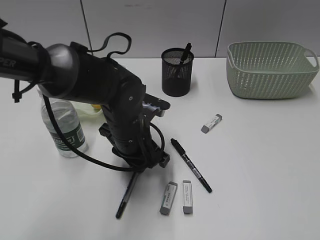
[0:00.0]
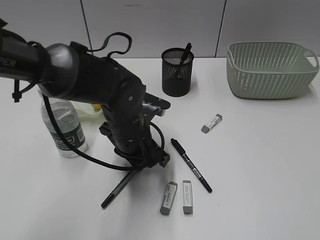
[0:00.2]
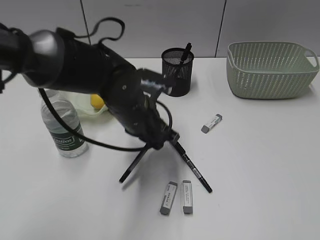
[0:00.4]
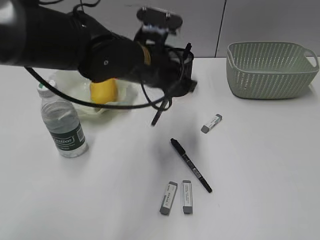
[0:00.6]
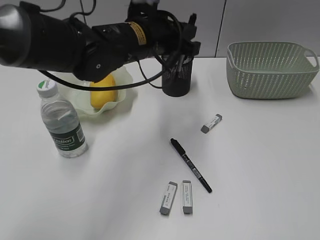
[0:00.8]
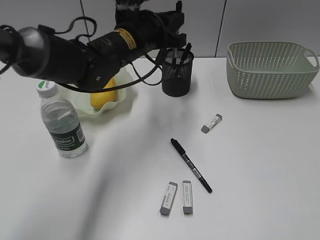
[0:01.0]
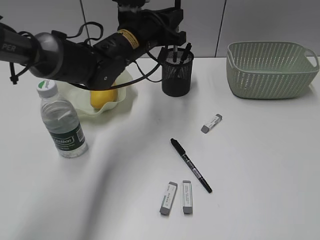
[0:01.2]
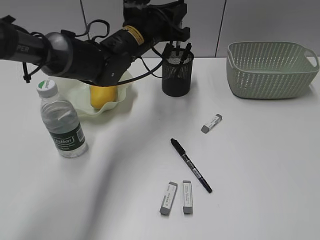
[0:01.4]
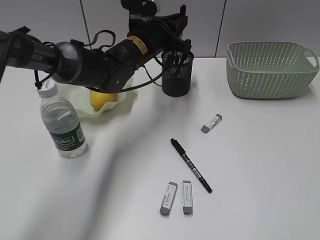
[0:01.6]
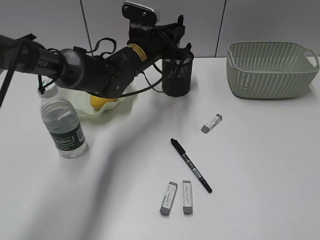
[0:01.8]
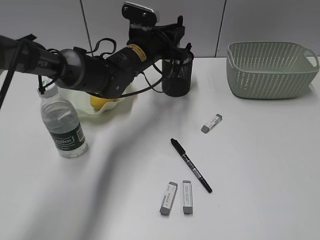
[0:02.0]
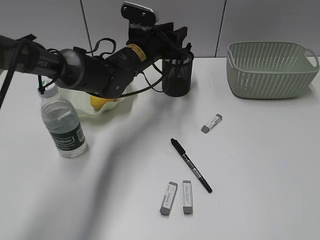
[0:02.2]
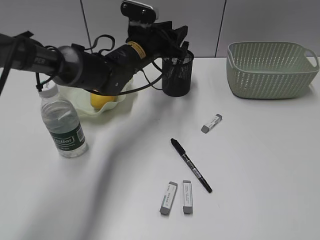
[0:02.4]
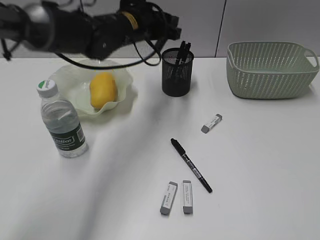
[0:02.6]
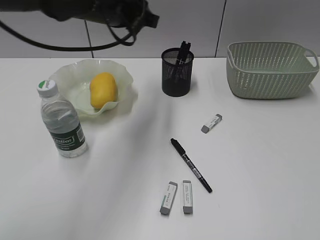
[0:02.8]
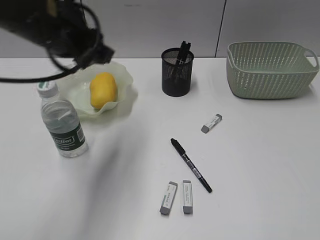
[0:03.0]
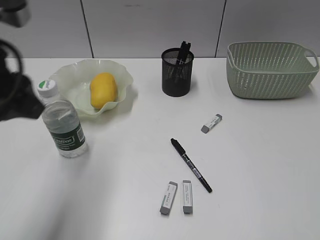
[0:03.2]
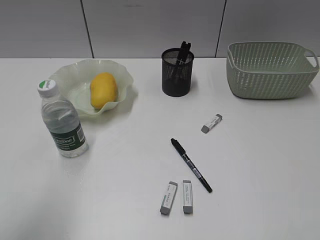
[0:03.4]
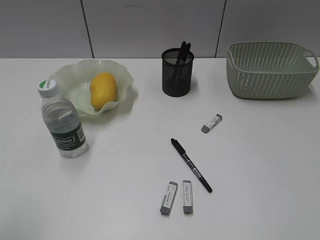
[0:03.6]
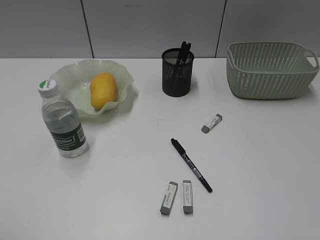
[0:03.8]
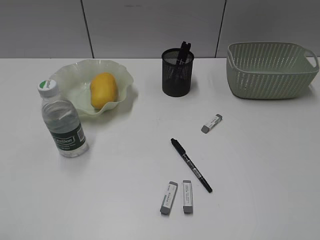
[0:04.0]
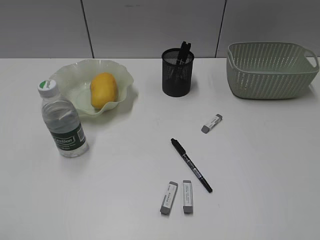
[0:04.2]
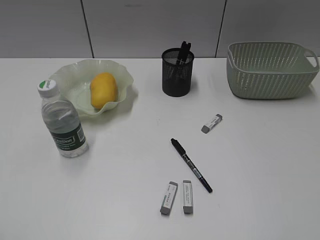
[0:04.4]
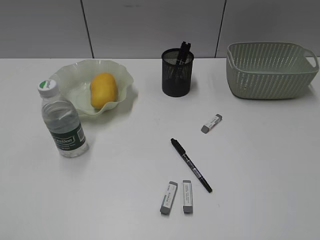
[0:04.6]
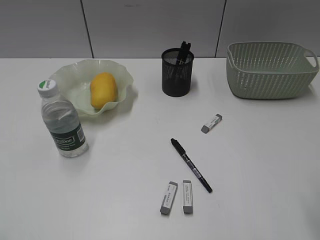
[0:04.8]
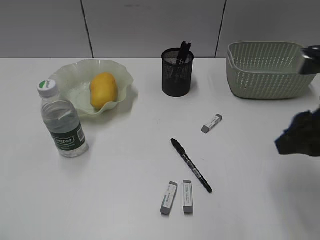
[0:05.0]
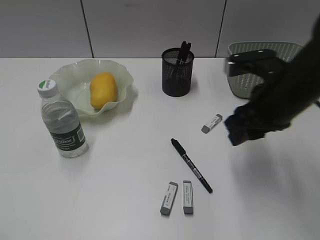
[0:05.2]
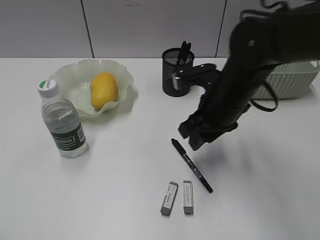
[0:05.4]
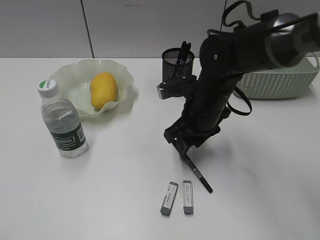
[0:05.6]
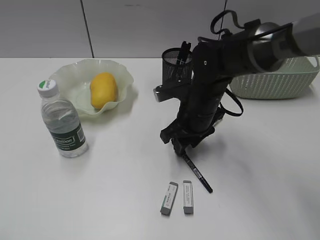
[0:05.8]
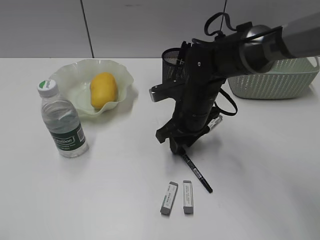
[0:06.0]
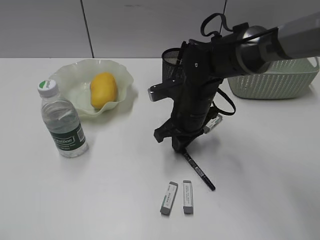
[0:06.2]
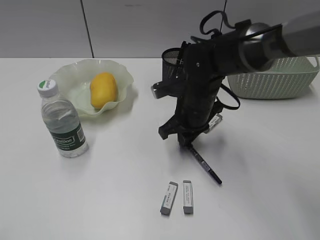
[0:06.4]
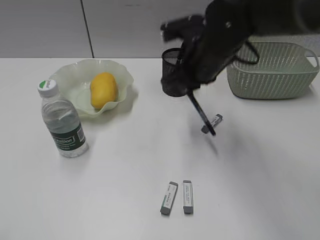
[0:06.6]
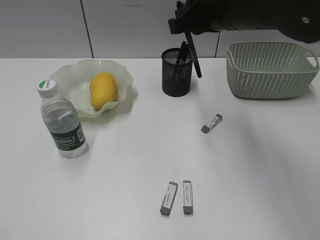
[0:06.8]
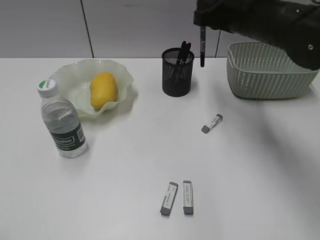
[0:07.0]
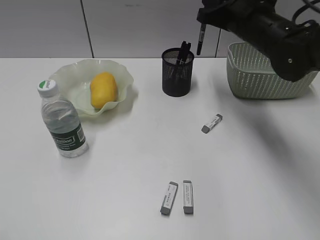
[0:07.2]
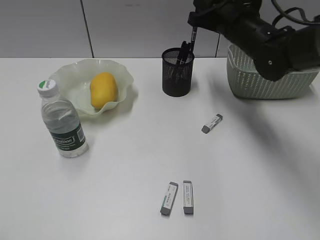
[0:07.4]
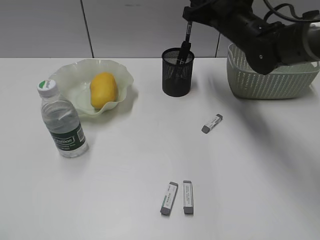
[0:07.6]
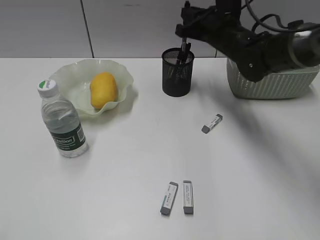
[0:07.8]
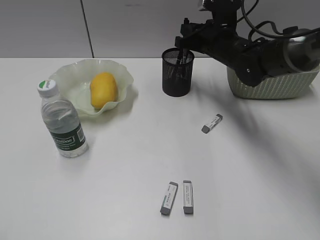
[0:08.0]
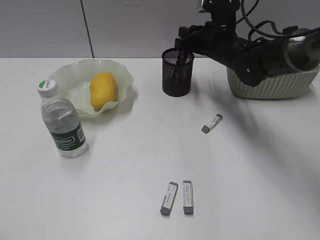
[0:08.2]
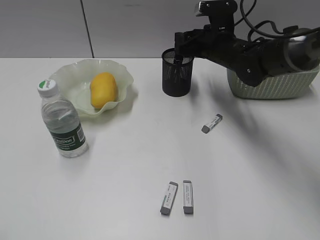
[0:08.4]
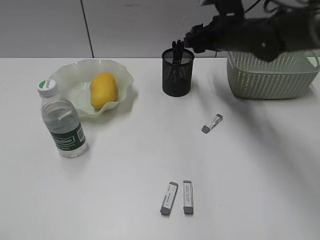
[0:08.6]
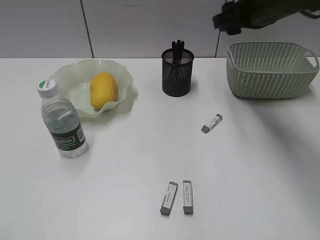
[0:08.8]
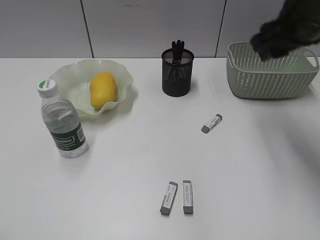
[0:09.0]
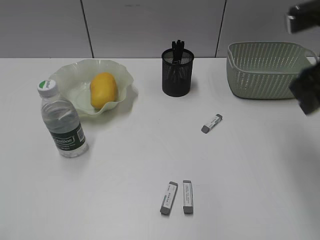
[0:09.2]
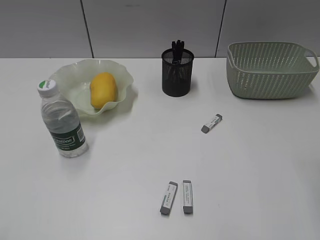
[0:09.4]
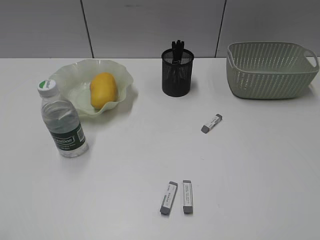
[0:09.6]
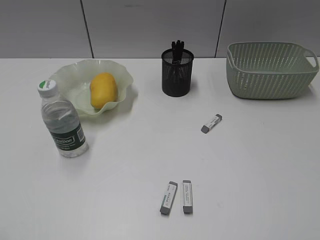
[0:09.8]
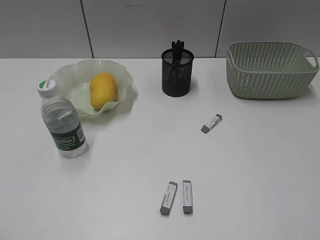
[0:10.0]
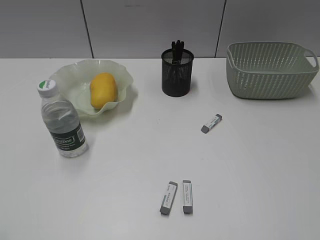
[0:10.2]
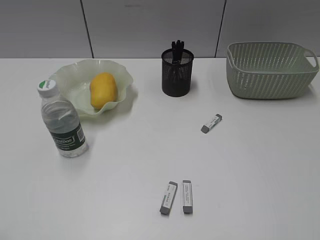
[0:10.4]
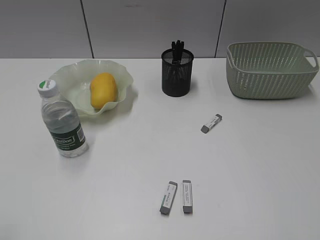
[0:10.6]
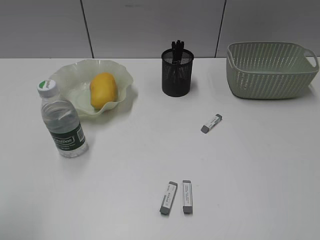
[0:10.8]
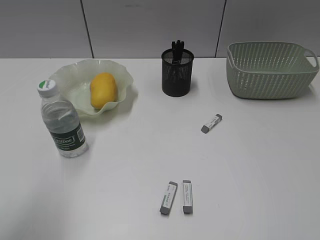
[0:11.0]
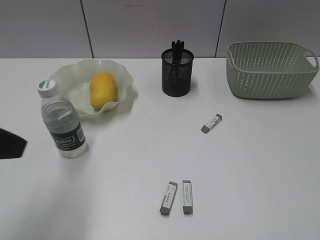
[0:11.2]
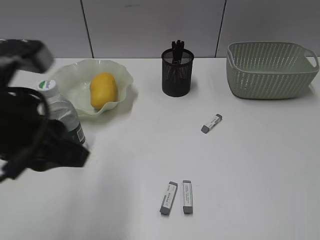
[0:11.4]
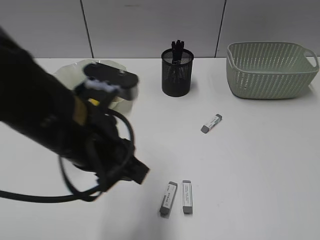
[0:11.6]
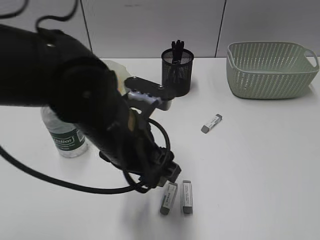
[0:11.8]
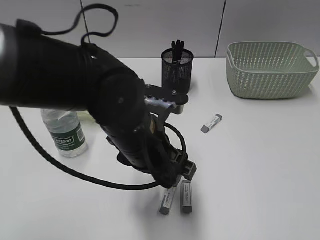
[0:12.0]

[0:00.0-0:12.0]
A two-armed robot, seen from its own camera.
Step, 0:00.2 to 0:02.4: Place the black pen in pen holder with left gripper.
Step, 0:02.6 to 0:06.2: Grasp the black pen with right gripper.
Step, 0:06.4 to 0:08.6: Place the black pen in pen holder with right gripper.
0:00.0 to 0:01.6: The left gripper is displaced forward and upward by some 15 cm.
0:01.6 to 0:03.0: The left gripper travels backward, to the left and upward by some 20 cm.
0:03.0 to 0:04.4: The left gripper is displaced backward and to the left by about 35 cm.
0:04.4 to 0:06.0: The right gripper heads forward, to the left and downward, covering about 50 cm.
0:06.0 to 0:07.6: The right gripper heads upward, forward and to the right, covering roughly 15 cm, and closes up.
0:07.6 to 0:09.0: The right gripper travels backward, upward and to the right by roughly 15 cm, and opens up.
0:09.0 to 0:10.4: The right gripper moves backward, some 35 cm.
0:10.4 to 0:12.0: The left gripper shifts approximately 40 cm to the right and forward, and opens its fingers.

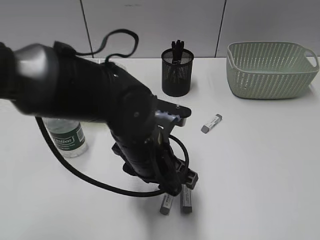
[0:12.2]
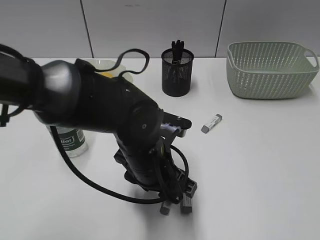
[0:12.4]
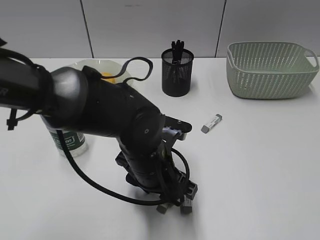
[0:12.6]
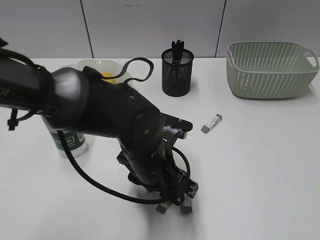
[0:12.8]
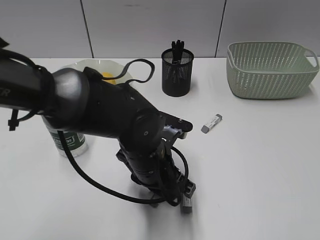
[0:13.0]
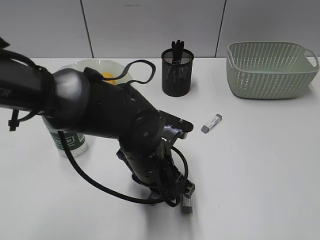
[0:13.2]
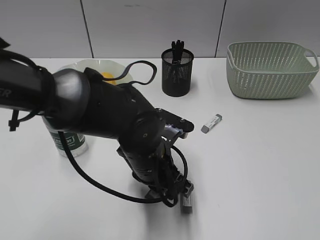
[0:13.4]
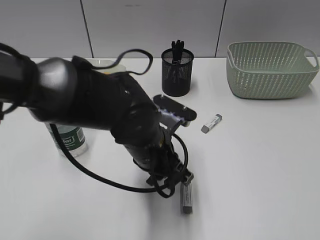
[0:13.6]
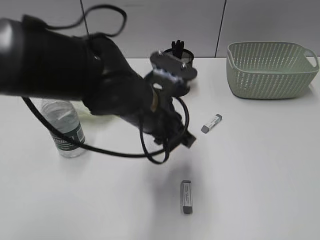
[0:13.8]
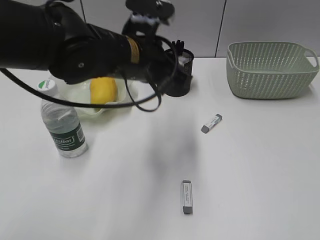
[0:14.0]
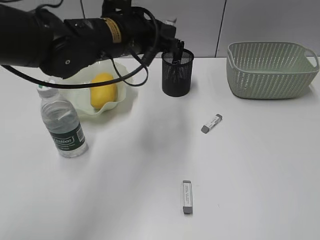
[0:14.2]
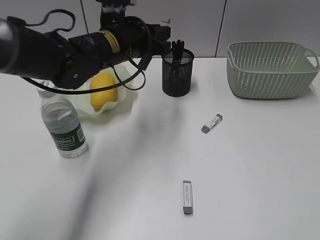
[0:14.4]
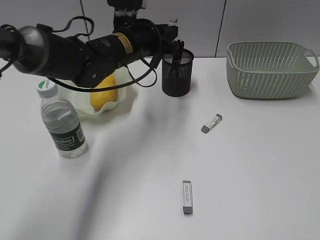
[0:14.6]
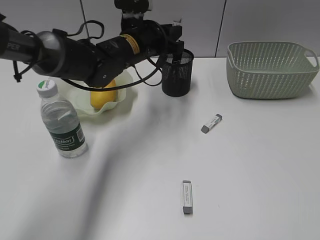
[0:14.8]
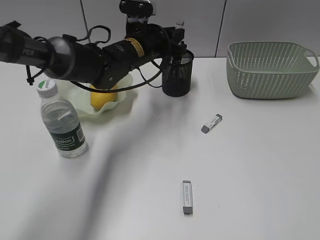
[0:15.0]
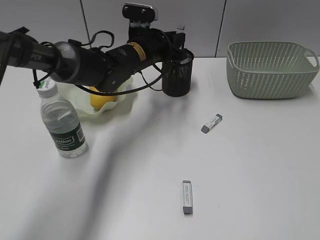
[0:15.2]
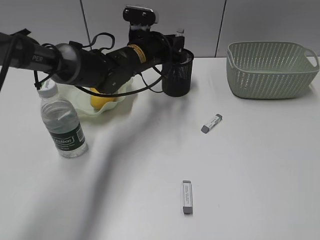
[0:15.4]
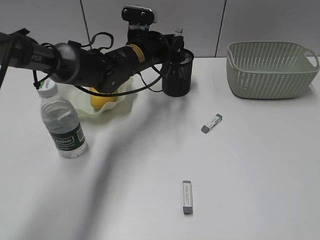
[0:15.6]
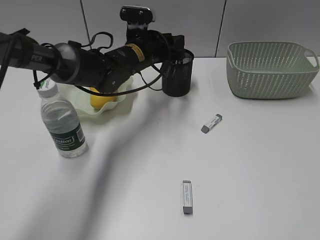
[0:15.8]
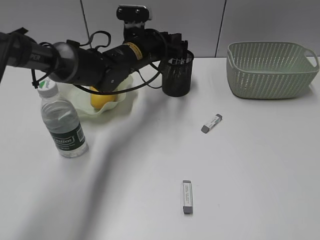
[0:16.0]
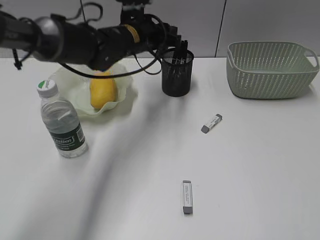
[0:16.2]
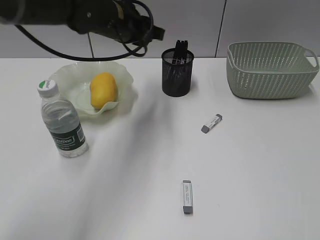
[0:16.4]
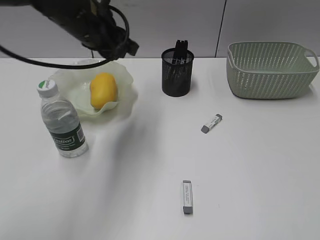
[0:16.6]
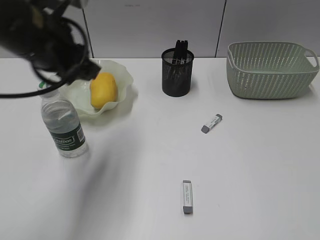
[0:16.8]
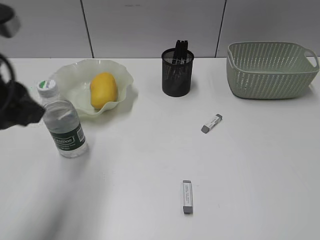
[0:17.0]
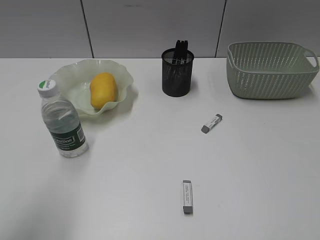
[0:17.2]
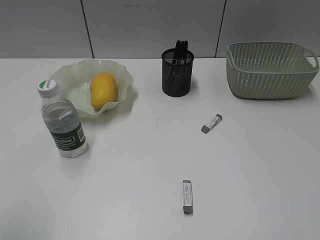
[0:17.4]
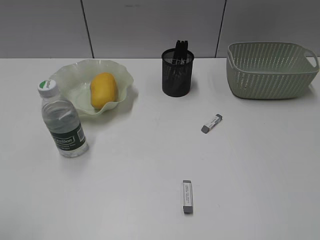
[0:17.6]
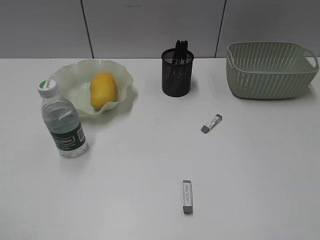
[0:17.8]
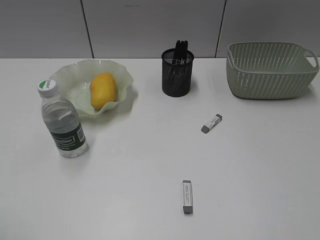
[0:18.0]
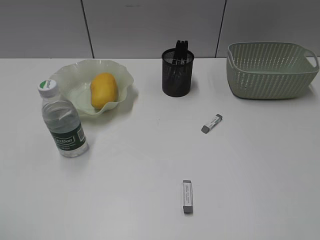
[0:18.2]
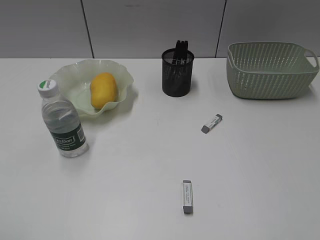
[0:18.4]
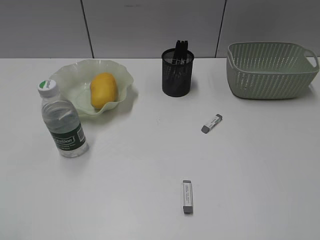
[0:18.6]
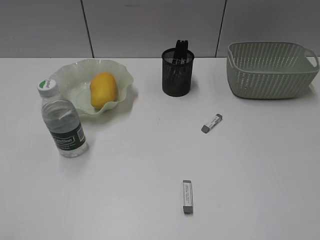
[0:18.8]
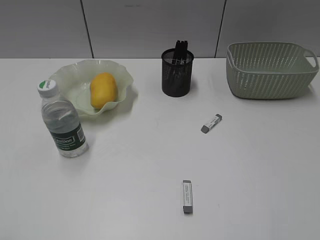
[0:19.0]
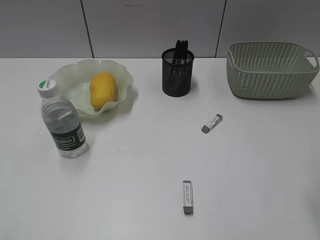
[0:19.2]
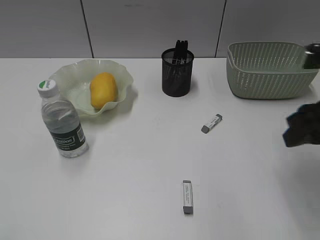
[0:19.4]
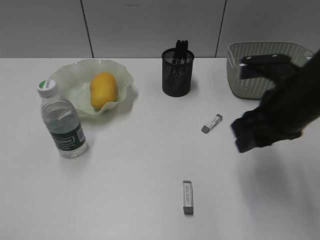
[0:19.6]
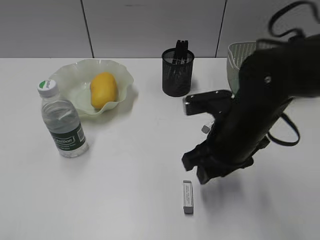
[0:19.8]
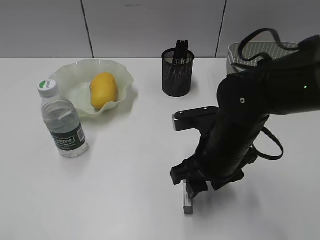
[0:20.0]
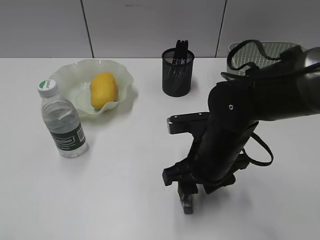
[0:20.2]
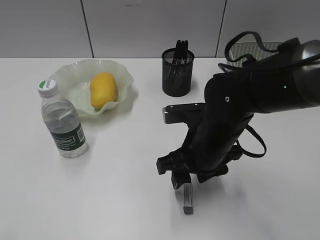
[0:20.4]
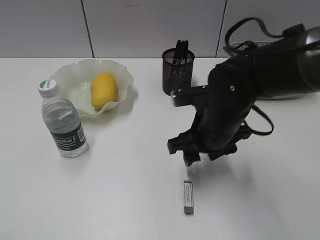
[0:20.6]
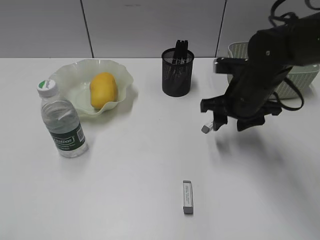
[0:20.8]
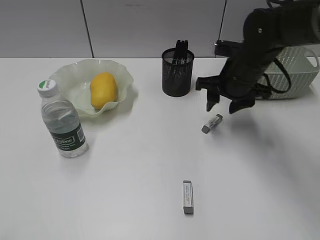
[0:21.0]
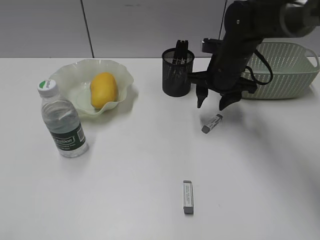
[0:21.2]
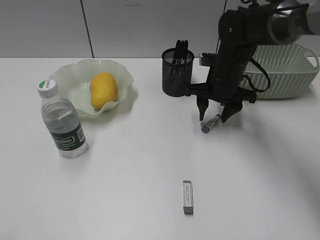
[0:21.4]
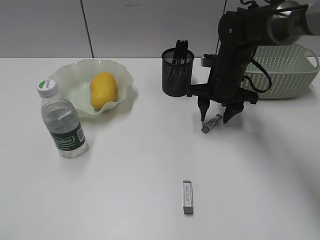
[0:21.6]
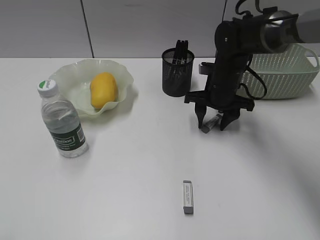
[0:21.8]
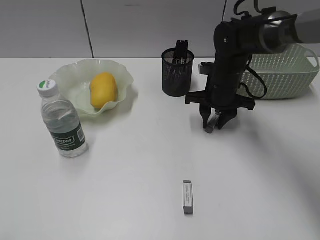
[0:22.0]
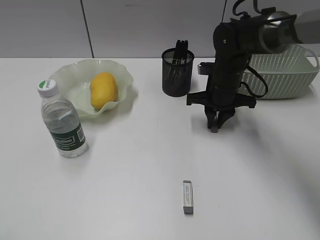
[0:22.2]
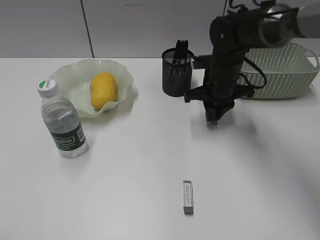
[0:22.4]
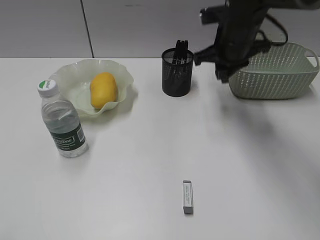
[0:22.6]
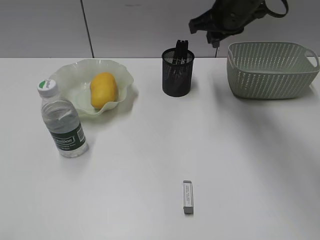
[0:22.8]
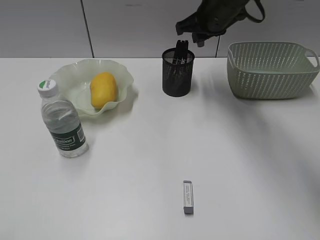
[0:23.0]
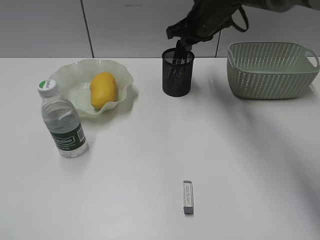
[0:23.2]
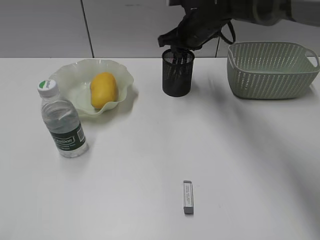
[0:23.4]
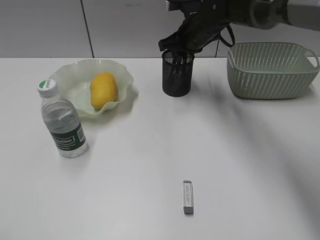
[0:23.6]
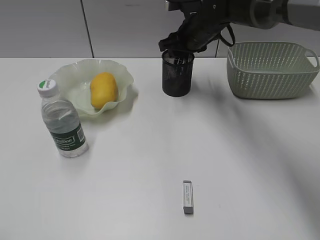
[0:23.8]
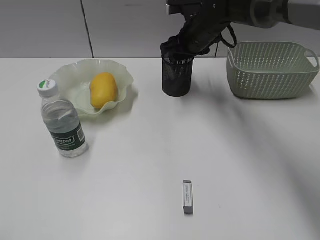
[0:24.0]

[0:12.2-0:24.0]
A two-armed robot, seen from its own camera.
Step, 0:13.4 to 0:16.0: Place the eraser in pen holder with left gripper.
Step, 0:16.2 to 0:22.2: Grasp the eraser with right gripper.
Step, 0:22.4 to 0:23.8: Place the eraser in pen holder with right gripper.
0:12.2 to 0:13.6: The left gripper closes.
0:13.6 to 0:15.2: The left gripper shifts roughly 20 cm forward.
0:15.2 to 0:16.6: The left gripper moves upward, to the left and backward, approximately 15 cm.
0:16.6 to 0:18.2: The left gripper shifts some 40 cm backward and to the left.
0:18.2 to 0:19.6: The right gripper travels forward and to the left by approximately 30 cm.
0:19.6 to 0:21.0: The right gripper heads forward, covering some 15 cm.
0:21.0 to 0:22.6: The right gripper heads upward, covering approximately 5 cm, and closes.
0:22.6 to 0:24.0: The right gripper shifts approximately 10 cm forward and to the left, and opens up.
